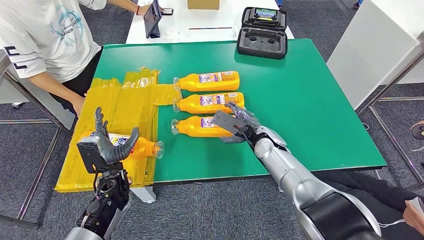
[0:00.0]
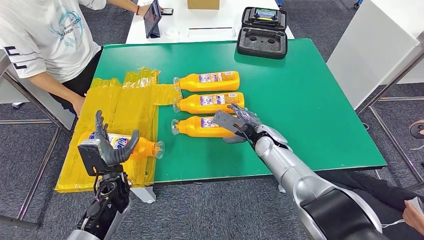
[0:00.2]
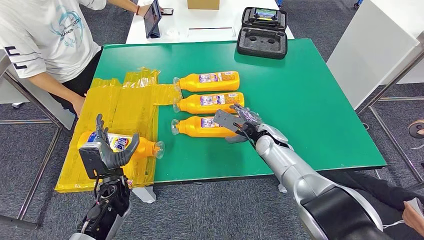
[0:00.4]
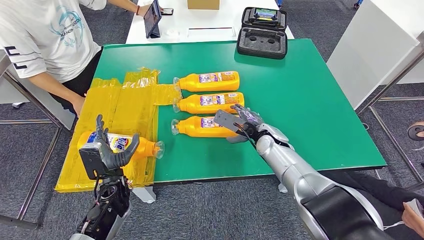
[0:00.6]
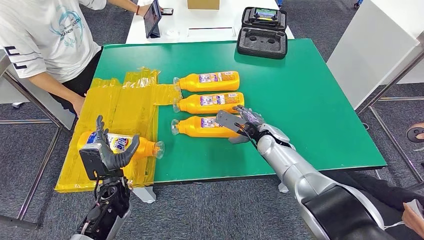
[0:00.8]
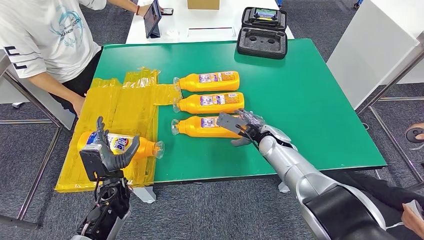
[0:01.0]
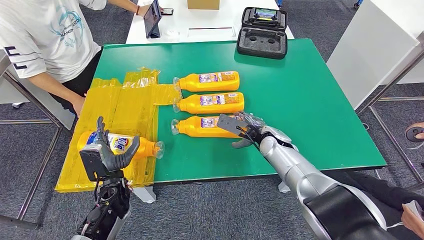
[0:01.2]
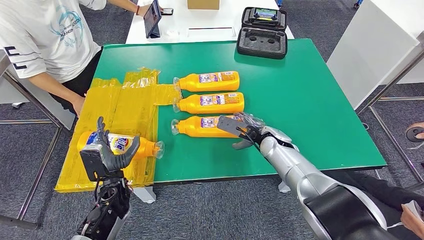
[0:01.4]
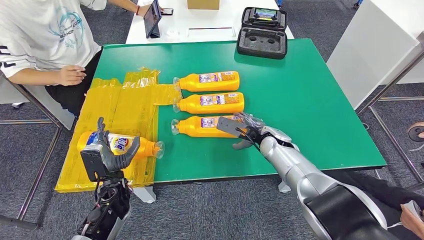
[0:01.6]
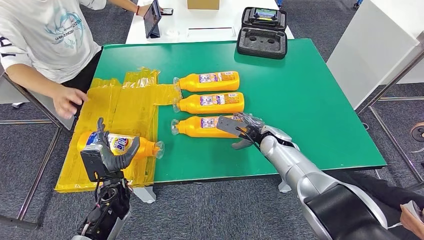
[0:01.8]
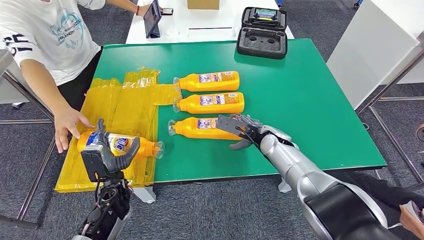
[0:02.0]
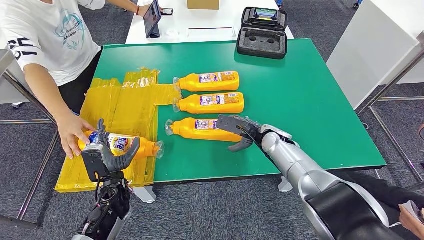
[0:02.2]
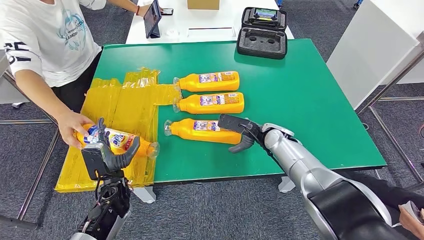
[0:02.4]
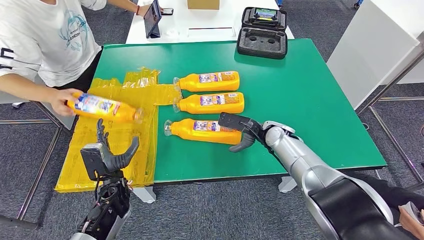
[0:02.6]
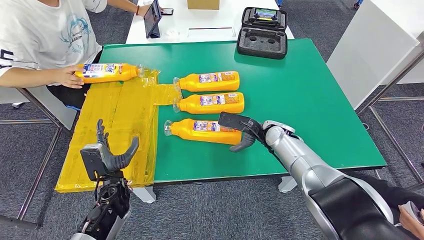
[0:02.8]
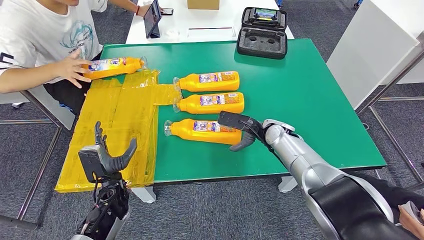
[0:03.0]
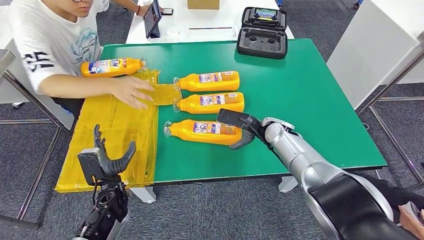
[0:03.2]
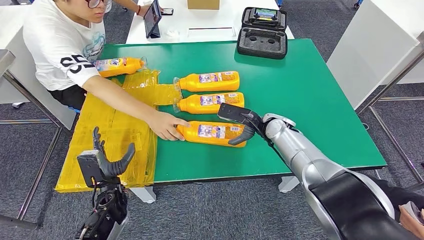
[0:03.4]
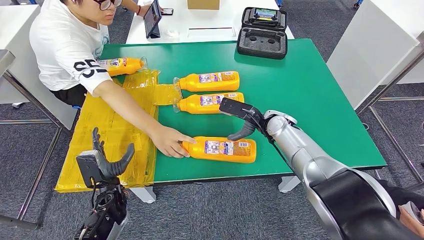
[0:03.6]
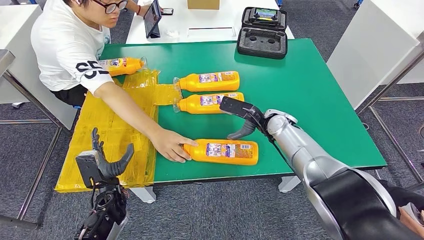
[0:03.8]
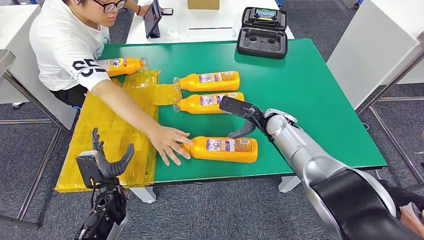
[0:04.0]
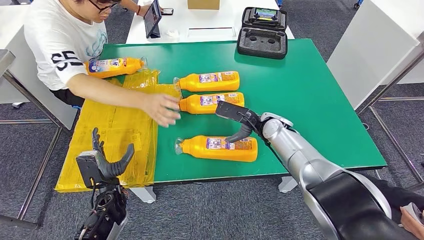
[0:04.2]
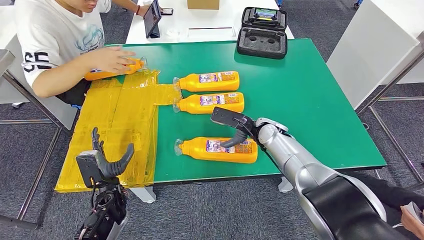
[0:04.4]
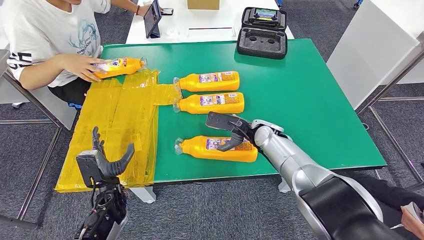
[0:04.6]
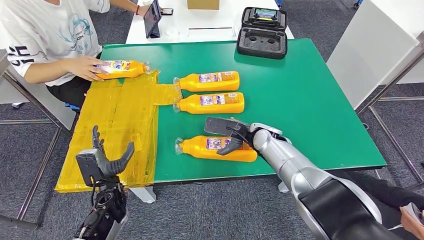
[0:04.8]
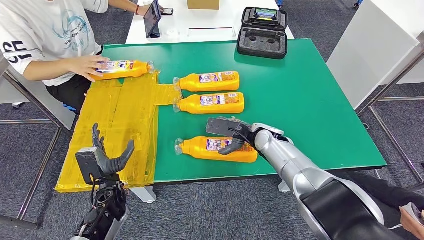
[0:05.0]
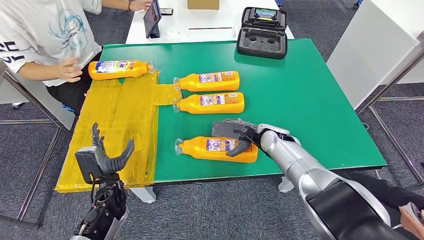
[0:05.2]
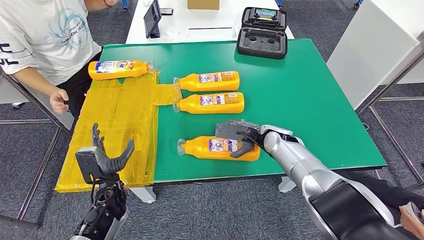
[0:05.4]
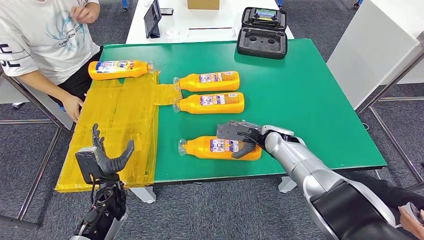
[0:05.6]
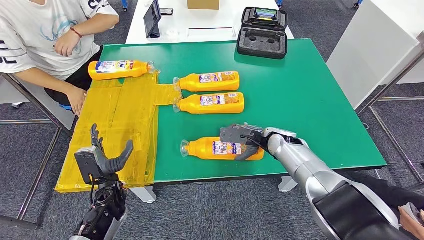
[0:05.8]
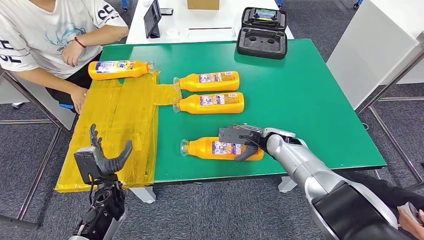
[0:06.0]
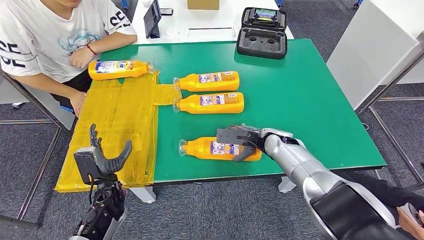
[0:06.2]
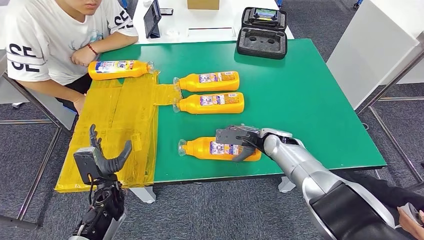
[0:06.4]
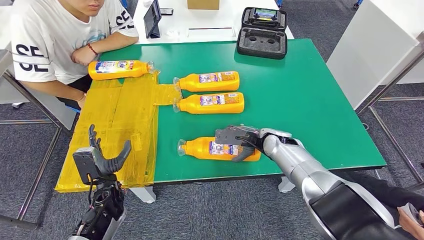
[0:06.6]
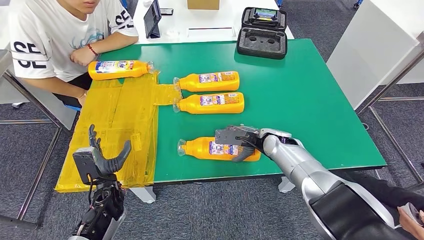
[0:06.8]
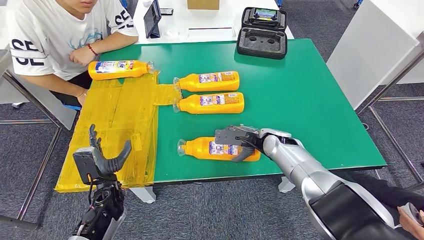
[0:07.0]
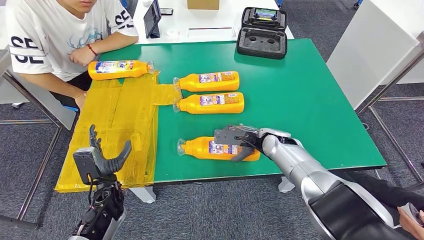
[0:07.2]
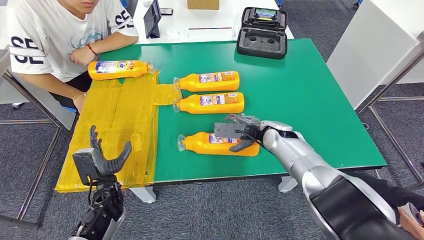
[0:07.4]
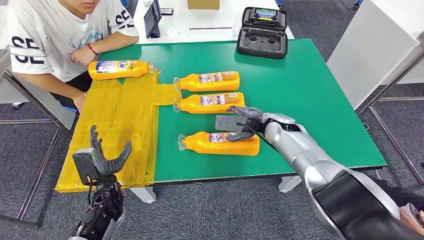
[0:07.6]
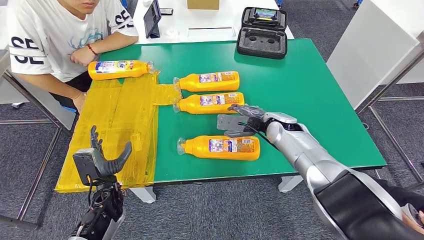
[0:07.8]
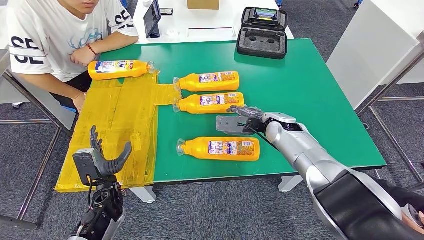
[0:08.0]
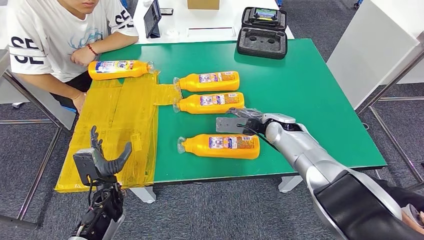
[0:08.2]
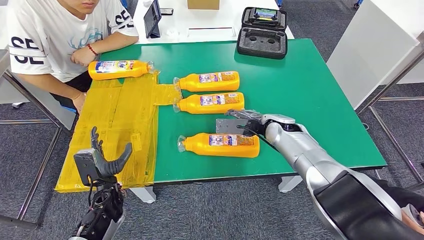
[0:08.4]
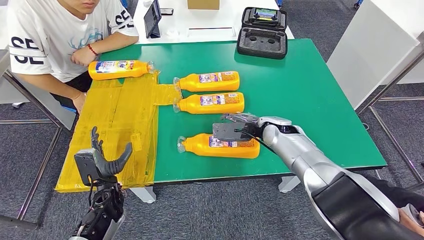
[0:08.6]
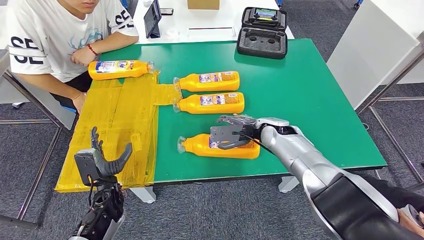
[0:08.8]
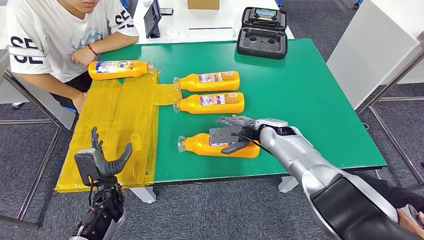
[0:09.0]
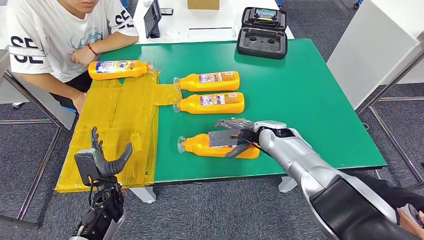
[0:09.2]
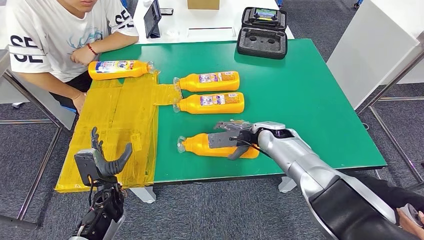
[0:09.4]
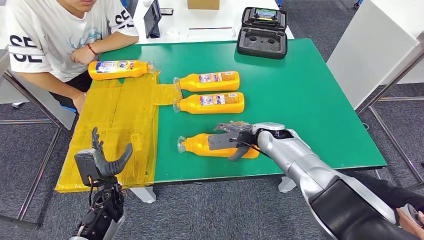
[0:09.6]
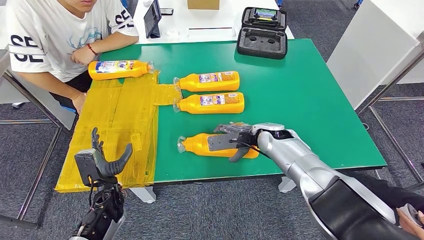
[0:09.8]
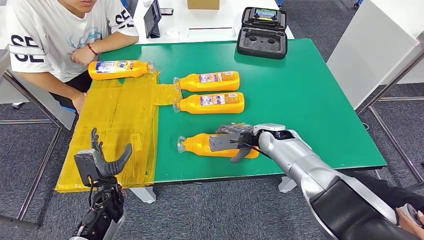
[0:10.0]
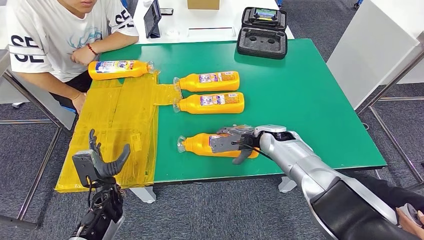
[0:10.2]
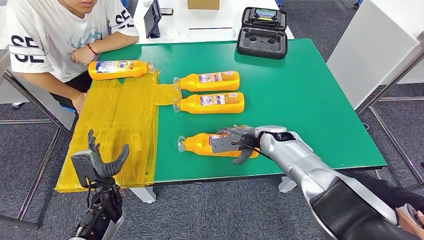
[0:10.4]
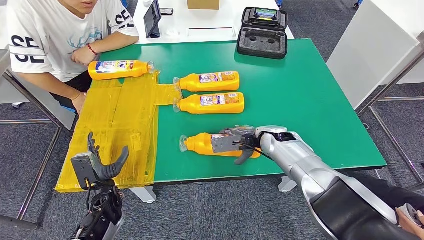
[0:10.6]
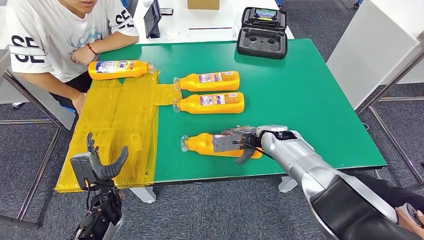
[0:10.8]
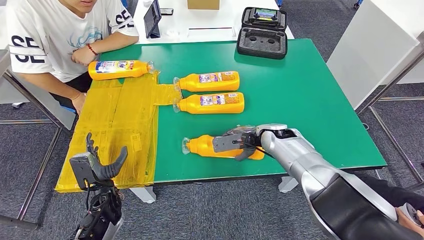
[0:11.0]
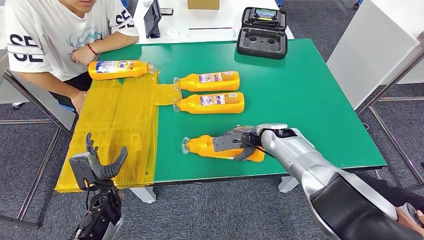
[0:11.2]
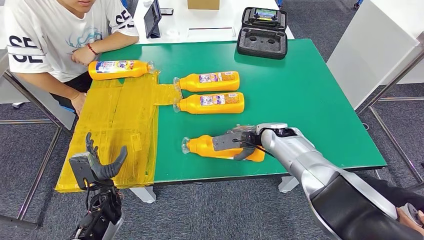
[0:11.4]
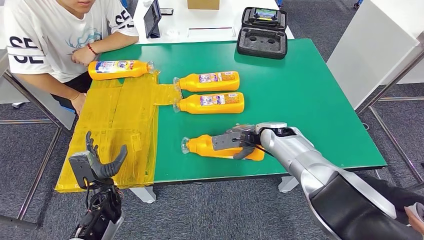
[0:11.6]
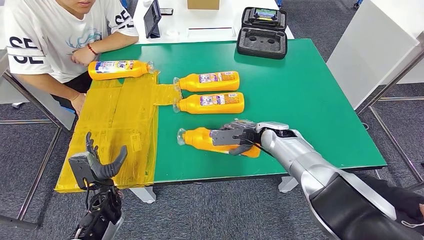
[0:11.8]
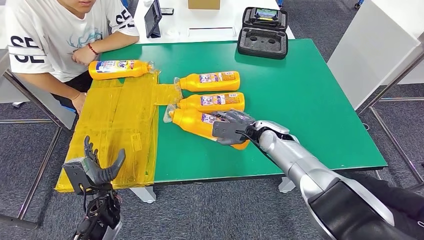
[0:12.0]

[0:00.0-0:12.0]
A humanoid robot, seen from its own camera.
0:00.0 to 0:01.6: The hands stay close to where they were, moving slightly.
0:01.6 to 0:07.6: The hands stay close to where they were, moving slightly.
0:07.6 to 0:10.4: The hands make only small movements.

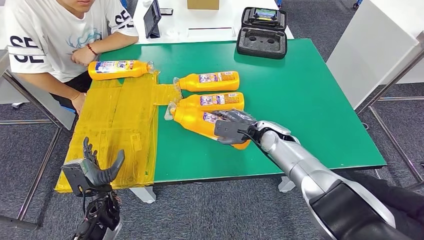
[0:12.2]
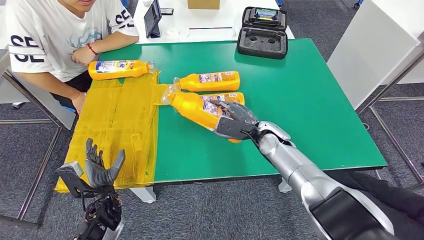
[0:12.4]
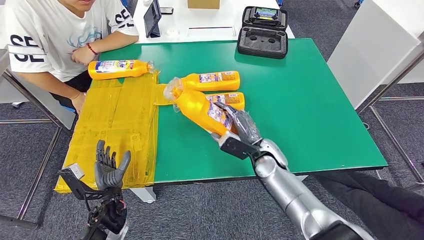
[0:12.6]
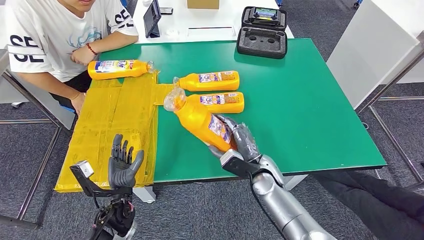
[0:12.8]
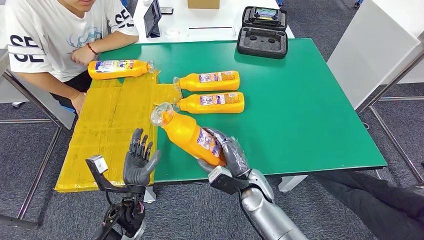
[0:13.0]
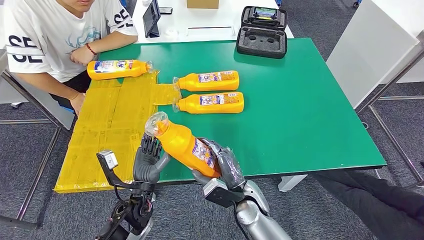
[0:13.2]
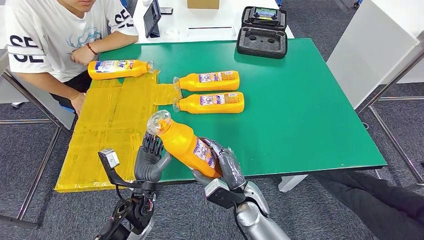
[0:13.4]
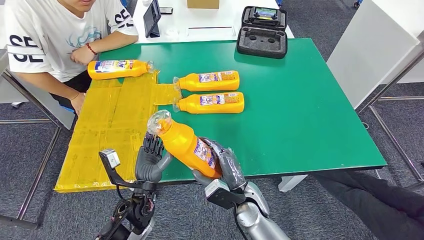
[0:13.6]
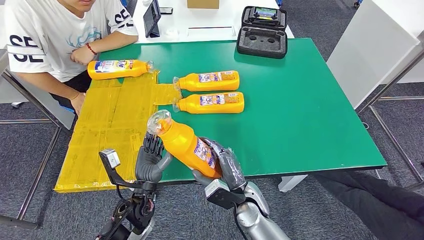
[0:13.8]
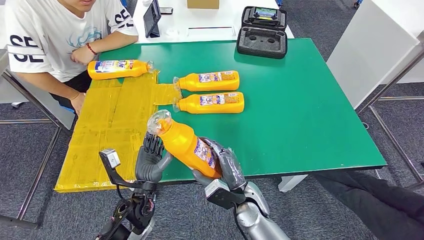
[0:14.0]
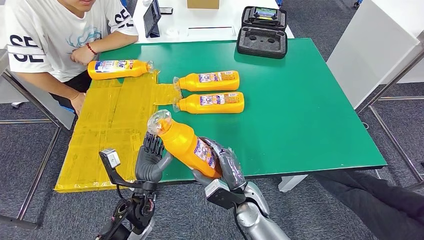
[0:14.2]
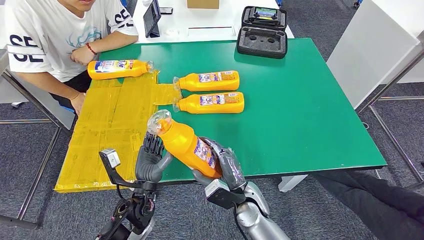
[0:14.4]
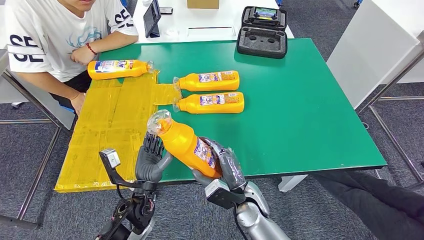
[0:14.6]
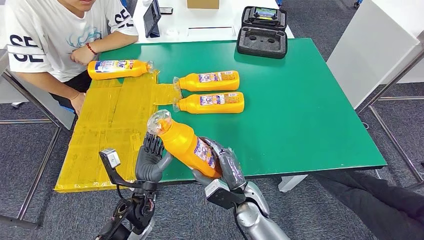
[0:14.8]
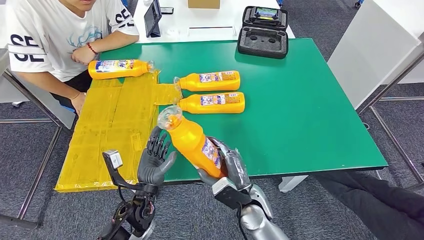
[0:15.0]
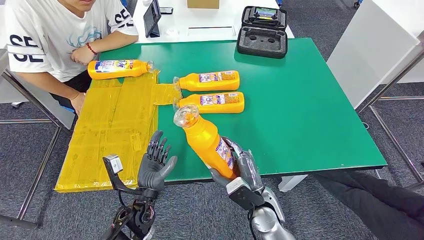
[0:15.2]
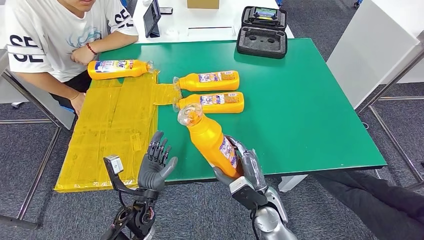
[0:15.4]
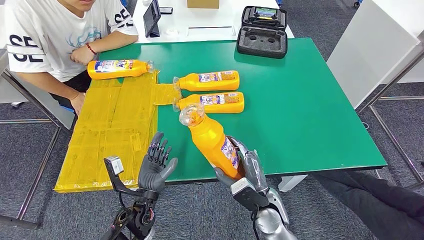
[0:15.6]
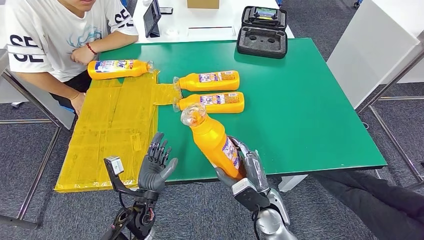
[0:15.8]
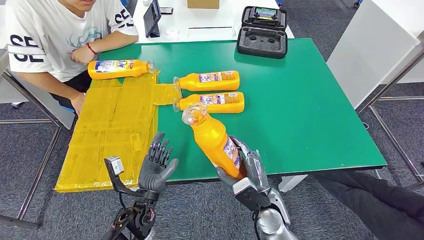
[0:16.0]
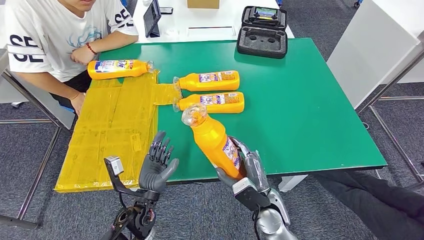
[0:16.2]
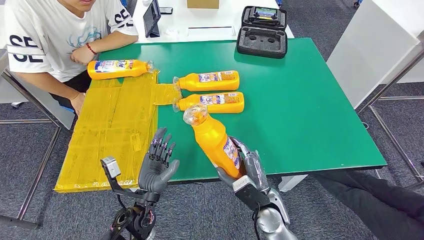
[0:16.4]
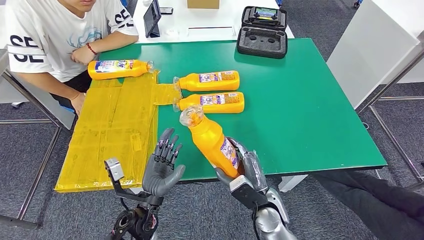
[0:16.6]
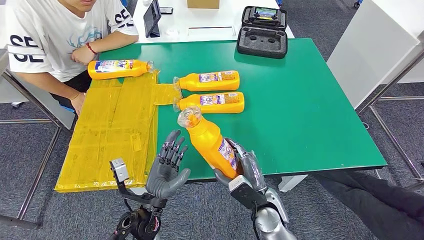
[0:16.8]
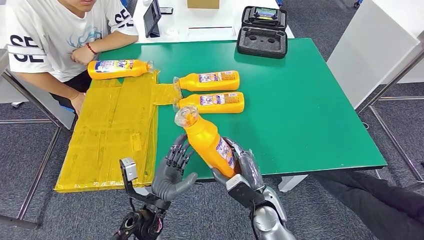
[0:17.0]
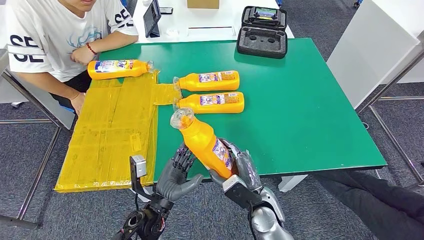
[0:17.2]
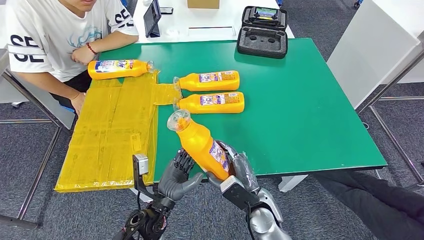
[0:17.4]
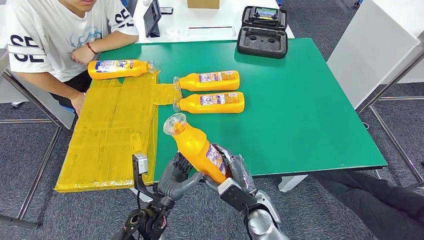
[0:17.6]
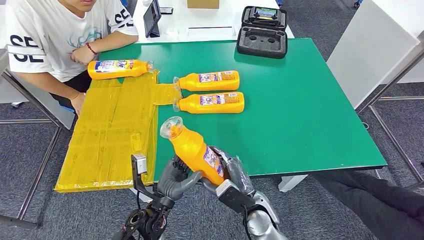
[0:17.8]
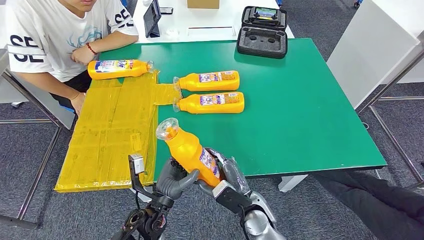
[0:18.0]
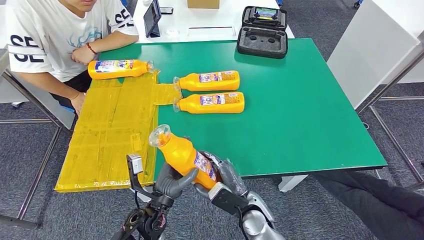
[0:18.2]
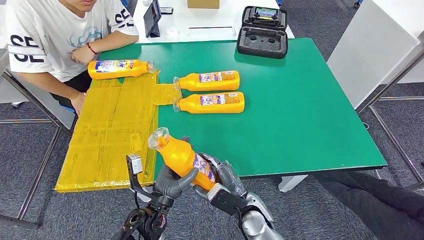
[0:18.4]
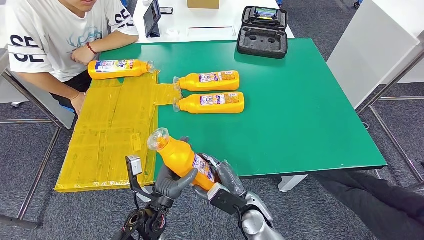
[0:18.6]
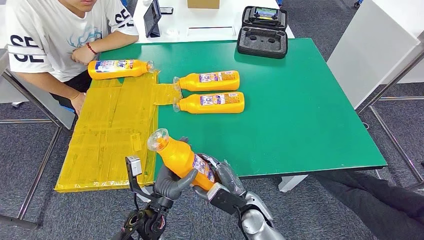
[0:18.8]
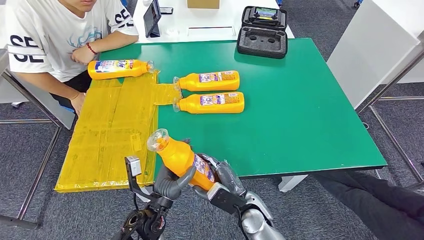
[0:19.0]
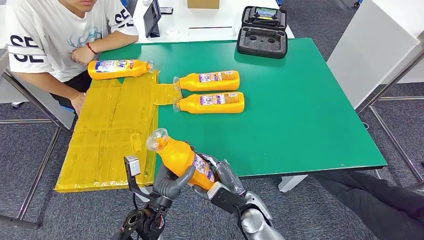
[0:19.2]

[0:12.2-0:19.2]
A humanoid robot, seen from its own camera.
0:13.6 to 0:19.2: The hands move only a little.
